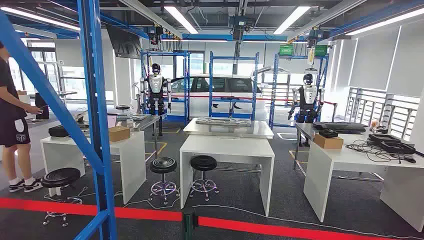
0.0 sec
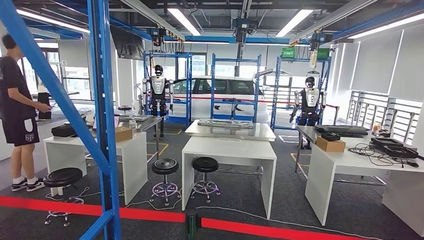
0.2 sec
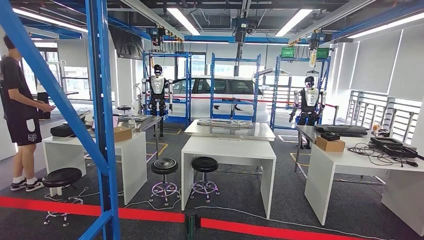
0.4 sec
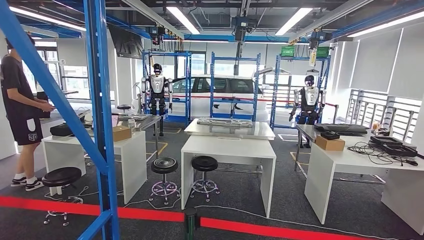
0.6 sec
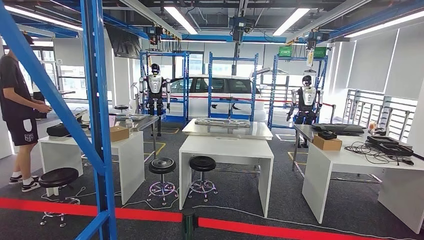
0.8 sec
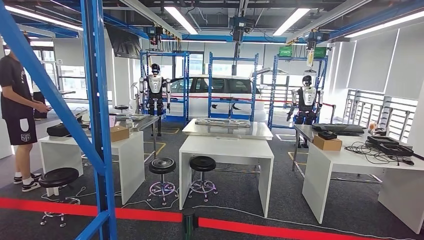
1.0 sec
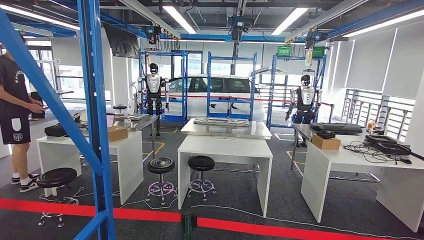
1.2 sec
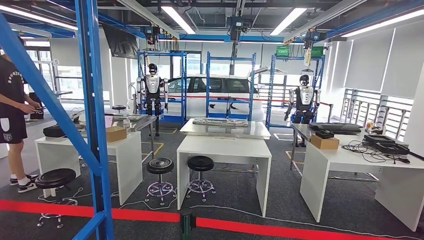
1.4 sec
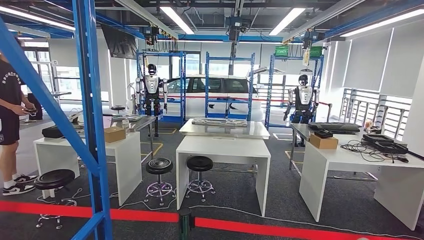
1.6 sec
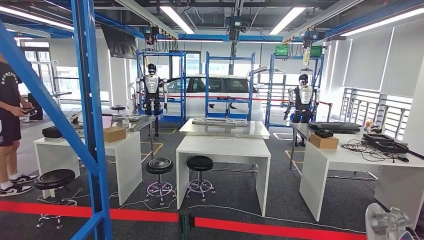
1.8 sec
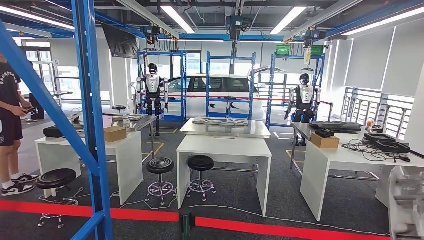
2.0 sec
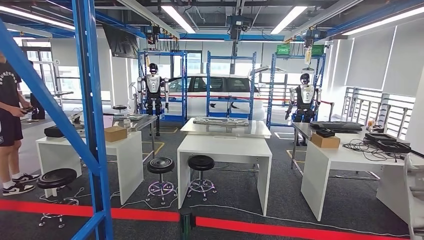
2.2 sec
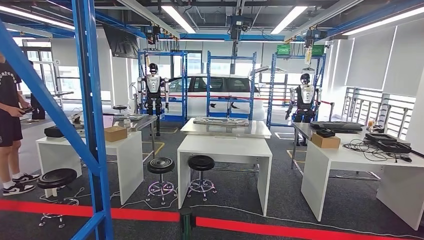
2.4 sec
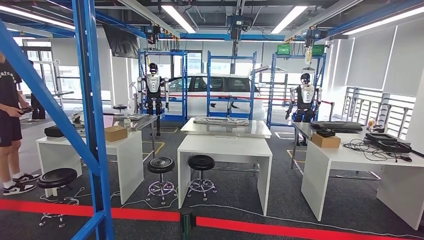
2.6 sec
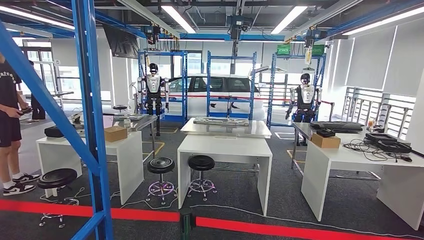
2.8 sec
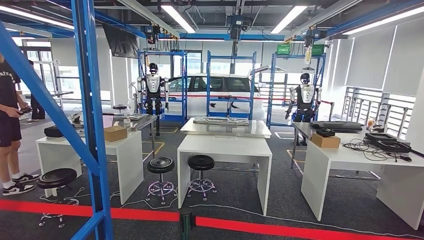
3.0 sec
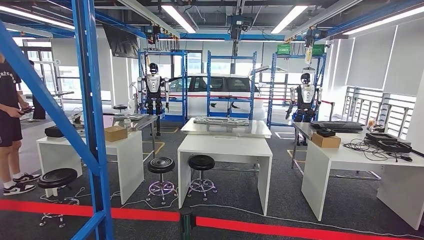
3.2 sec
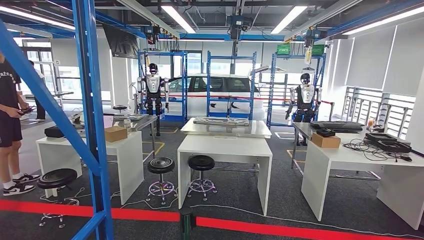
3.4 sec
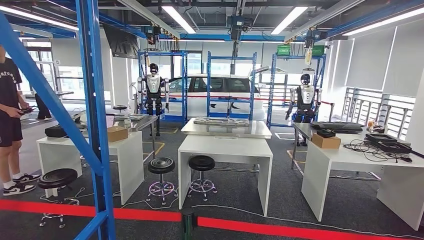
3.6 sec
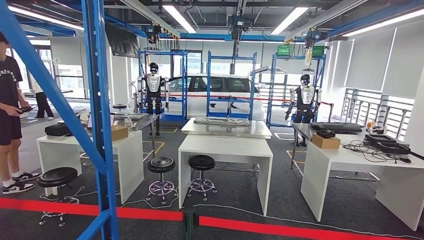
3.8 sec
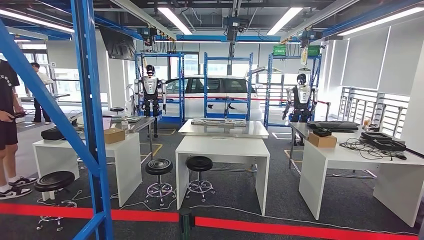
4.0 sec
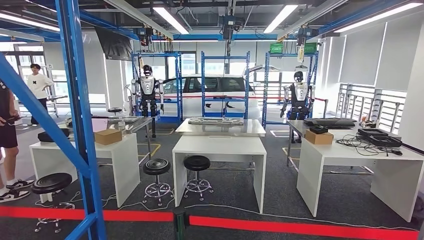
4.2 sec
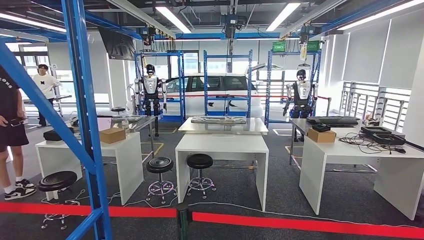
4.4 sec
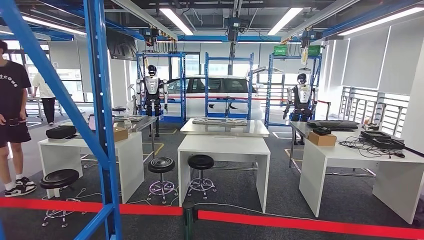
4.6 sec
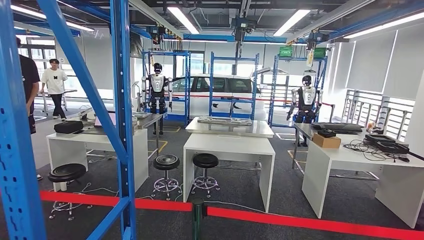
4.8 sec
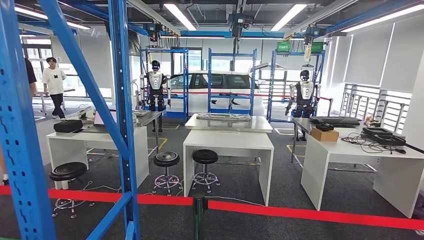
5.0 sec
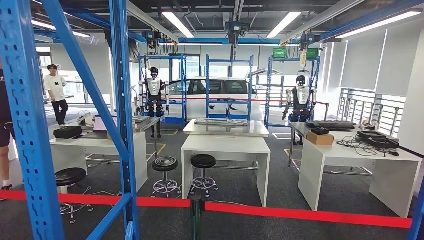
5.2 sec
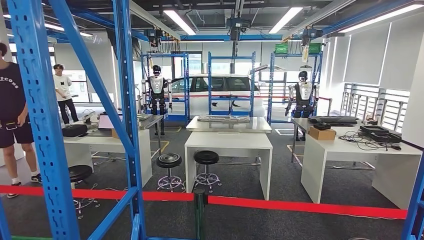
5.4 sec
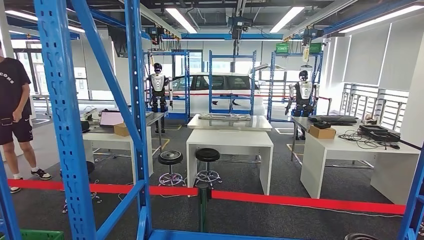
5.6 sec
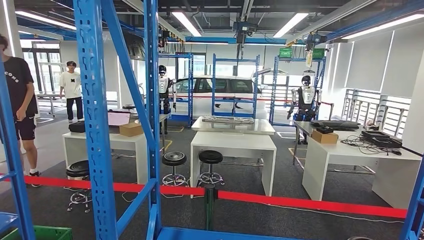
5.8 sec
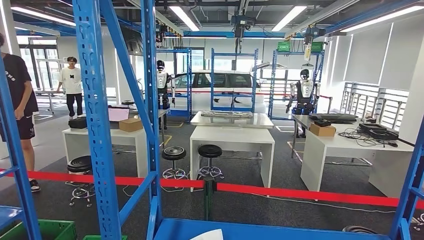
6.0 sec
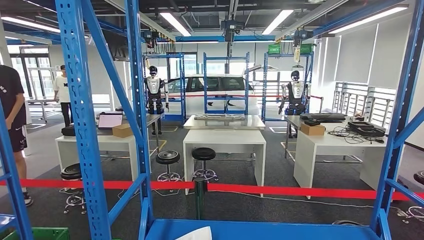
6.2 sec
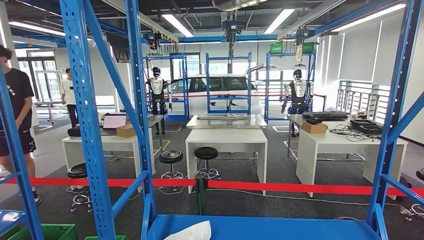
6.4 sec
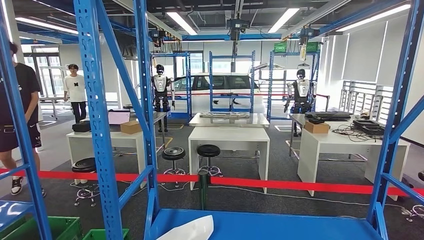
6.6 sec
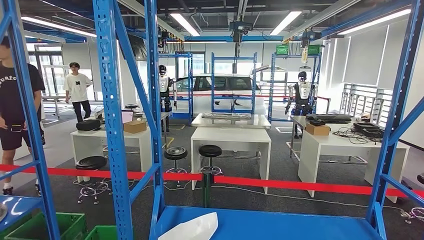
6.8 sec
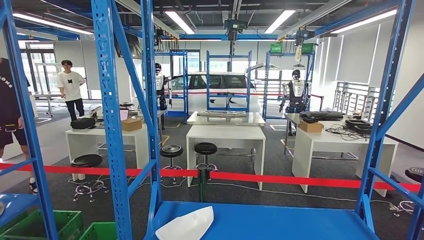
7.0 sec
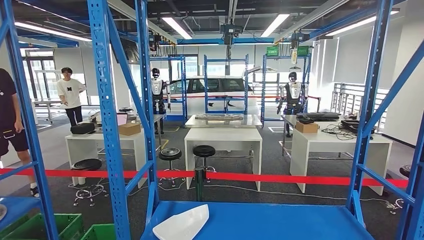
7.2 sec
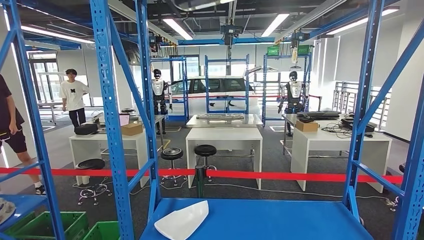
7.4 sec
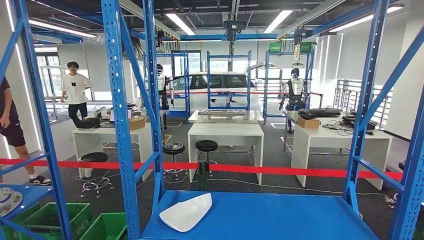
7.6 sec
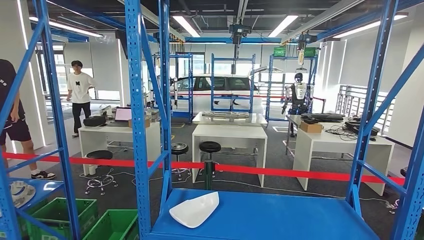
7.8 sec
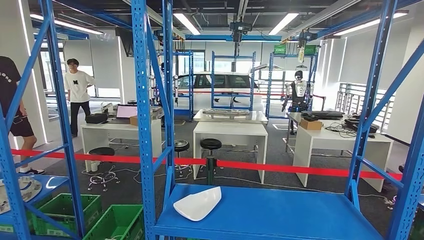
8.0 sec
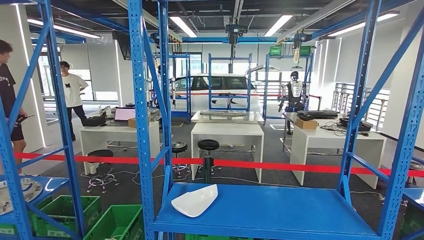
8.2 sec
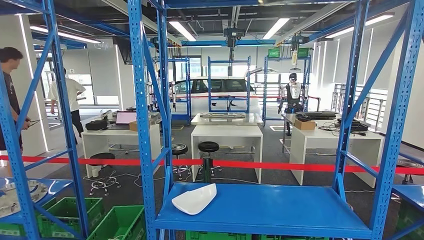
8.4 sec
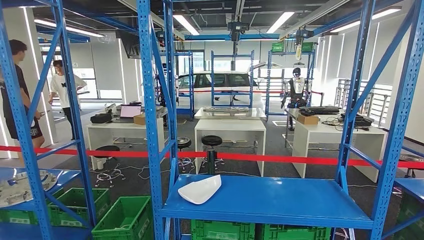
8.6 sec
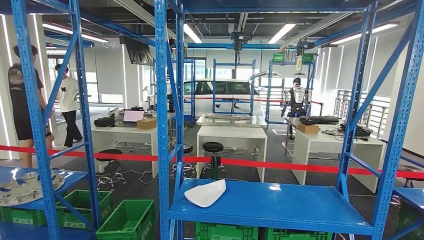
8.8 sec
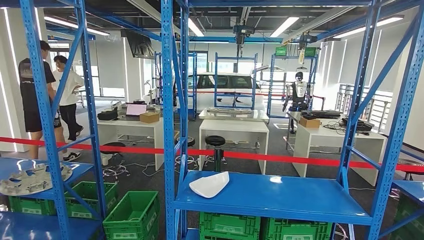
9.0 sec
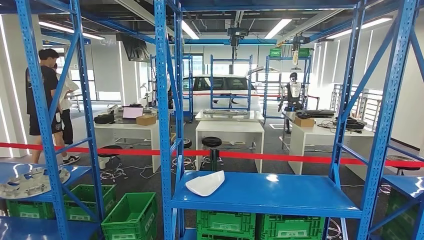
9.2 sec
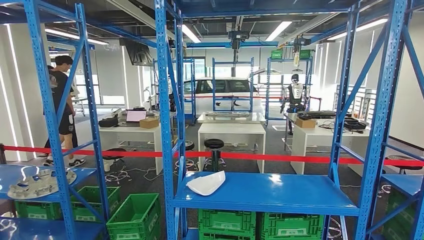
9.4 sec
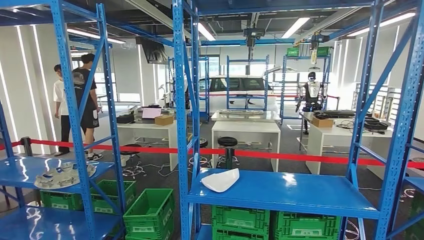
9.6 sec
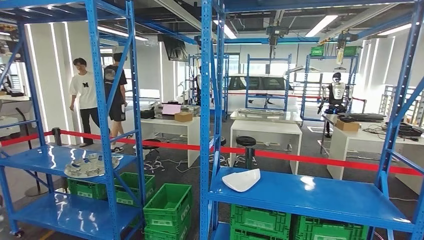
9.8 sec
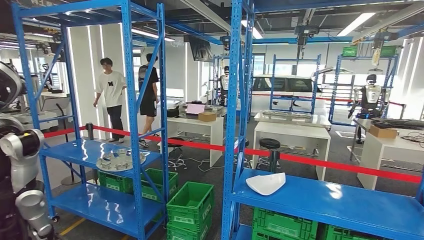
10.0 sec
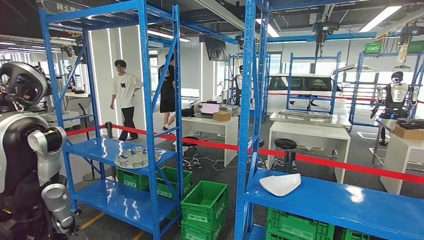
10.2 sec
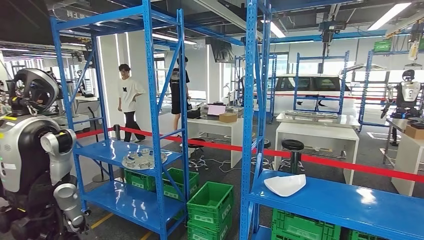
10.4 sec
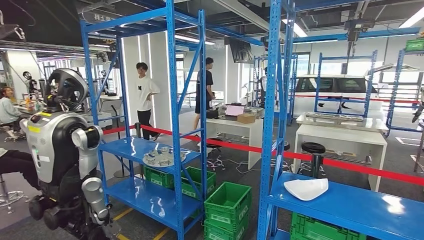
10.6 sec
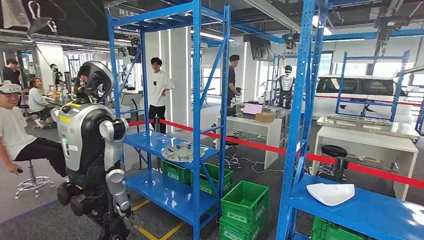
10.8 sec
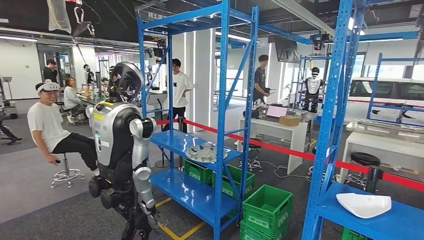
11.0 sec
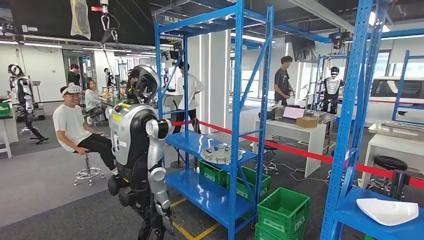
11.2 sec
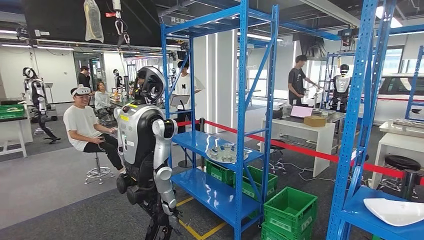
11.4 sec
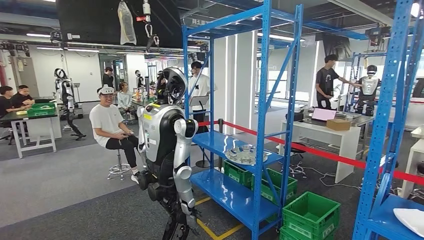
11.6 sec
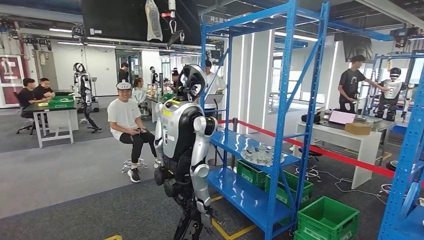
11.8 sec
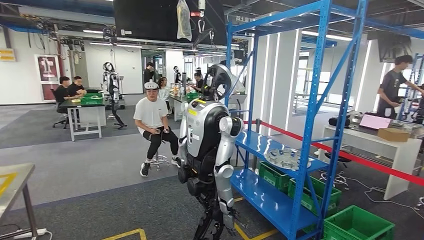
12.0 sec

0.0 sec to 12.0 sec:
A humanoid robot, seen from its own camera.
Step, 0.0 sec to 3.4 sec: Pick up the small component from the shelf.

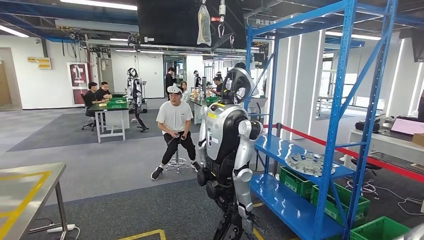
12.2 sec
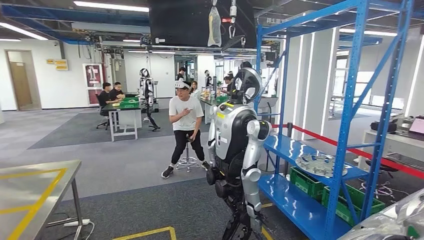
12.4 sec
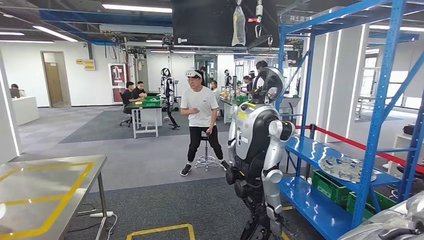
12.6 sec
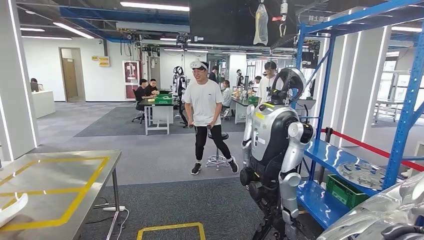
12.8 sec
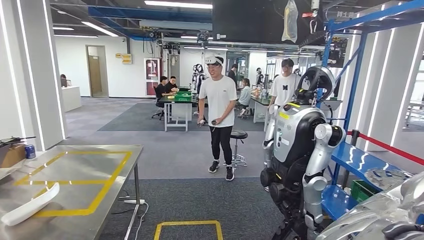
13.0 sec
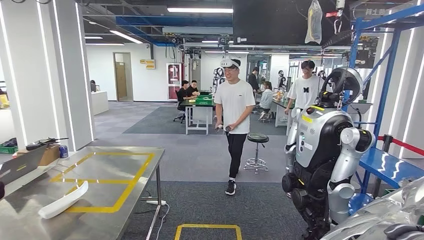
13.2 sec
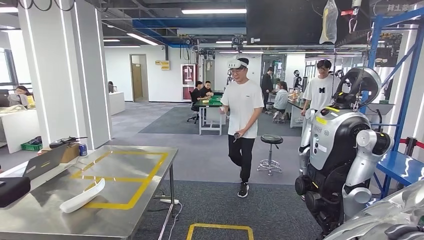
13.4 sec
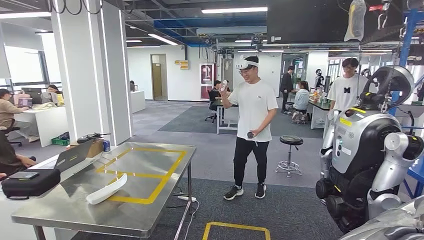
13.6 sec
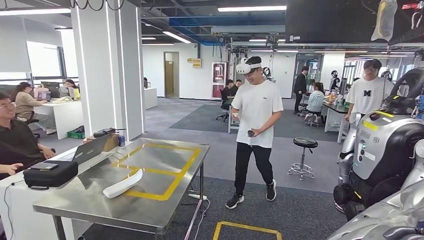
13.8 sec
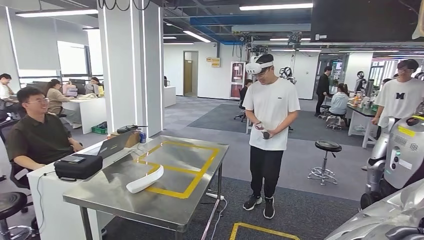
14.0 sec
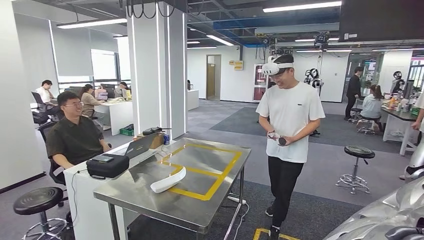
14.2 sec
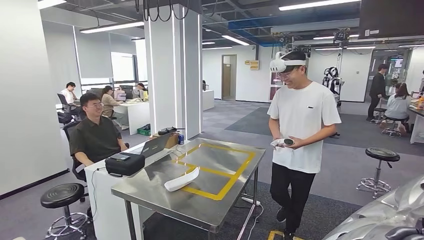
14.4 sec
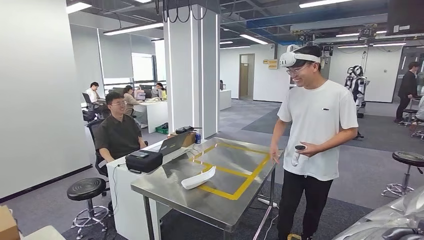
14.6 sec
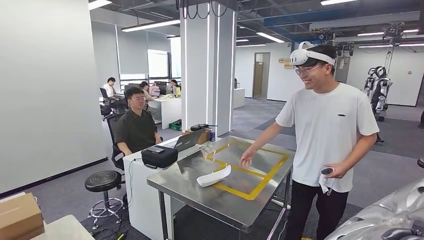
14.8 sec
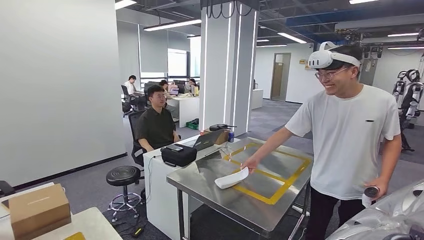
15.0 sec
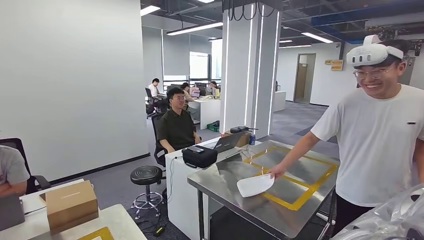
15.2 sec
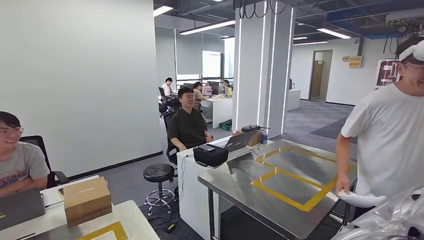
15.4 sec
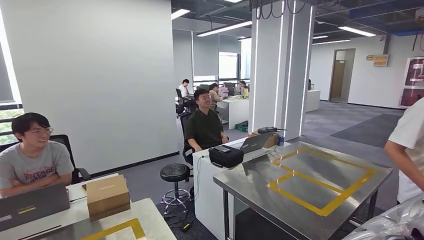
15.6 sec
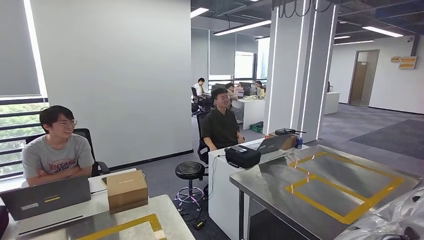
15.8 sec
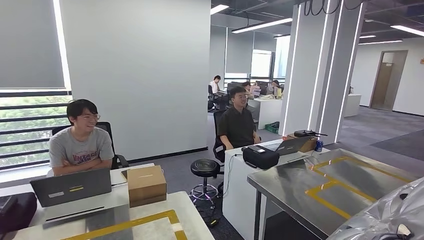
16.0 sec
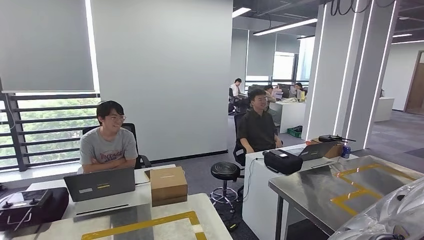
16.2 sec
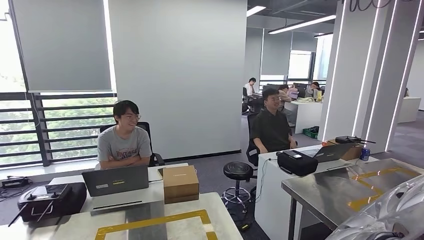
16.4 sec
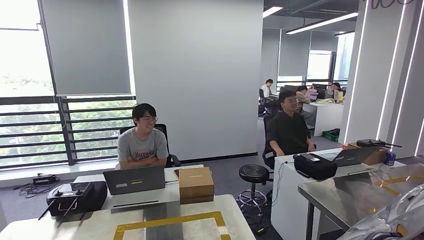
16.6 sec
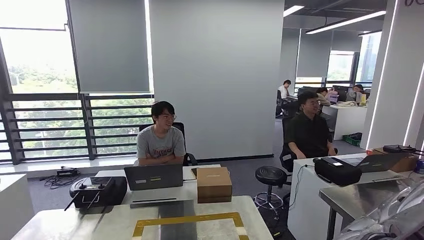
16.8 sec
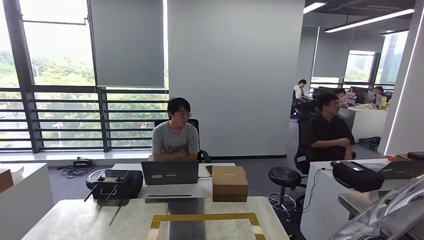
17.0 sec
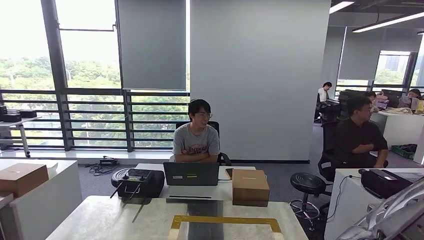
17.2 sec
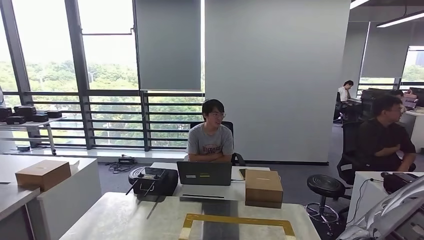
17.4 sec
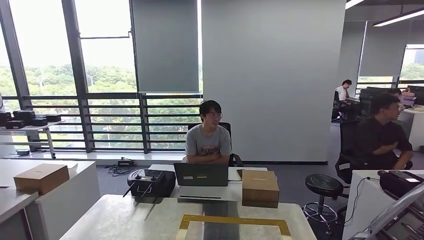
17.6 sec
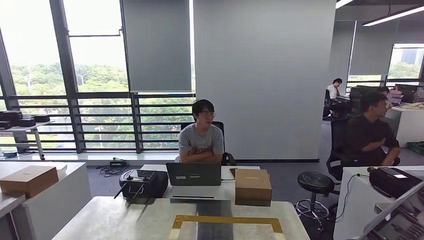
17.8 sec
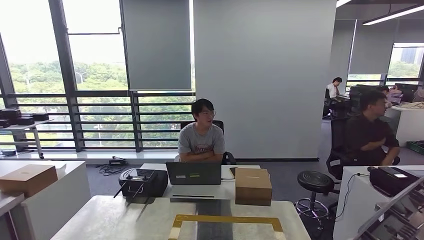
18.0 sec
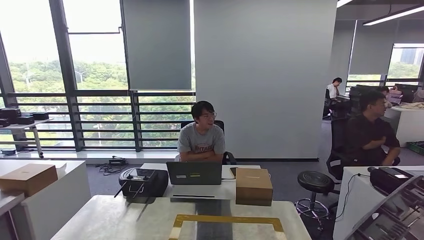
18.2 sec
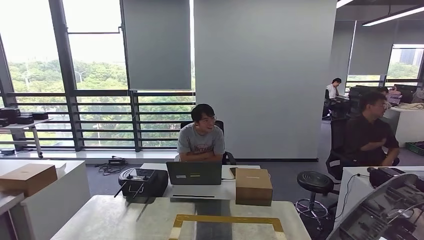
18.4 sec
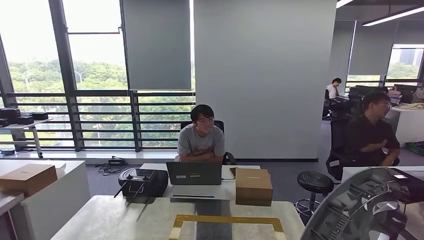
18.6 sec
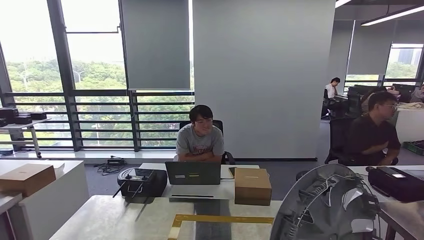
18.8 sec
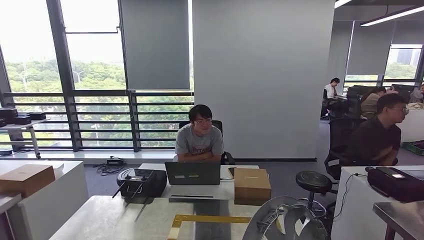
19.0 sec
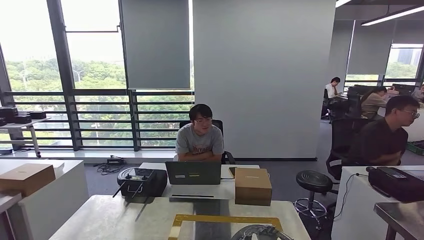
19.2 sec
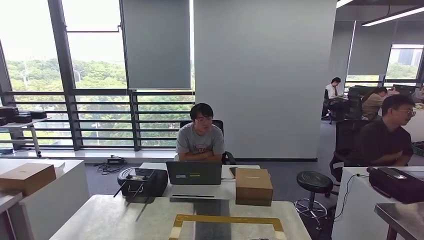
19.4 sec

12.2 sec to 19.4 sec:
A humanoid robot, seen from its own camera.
Step, 12.2 sec to 17.2 sec: Move the small component to the workbench.
18.0 sec to 19.4 sec: The right hand heads downward, to the left and forward, covering roughly 20 cm.
